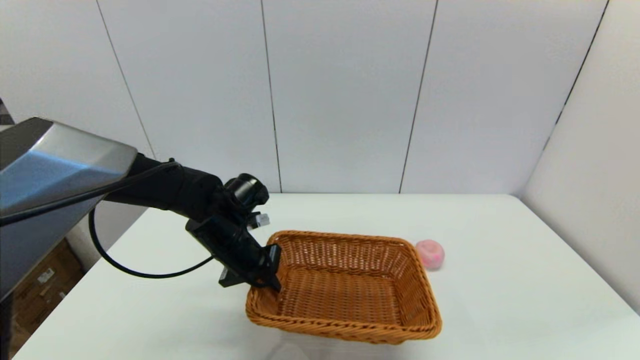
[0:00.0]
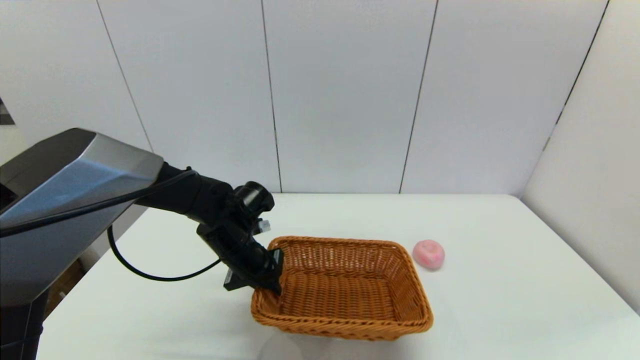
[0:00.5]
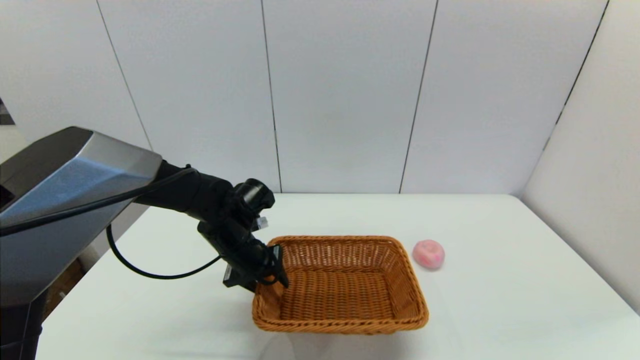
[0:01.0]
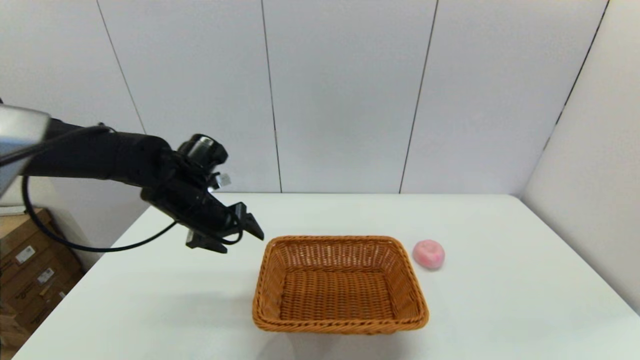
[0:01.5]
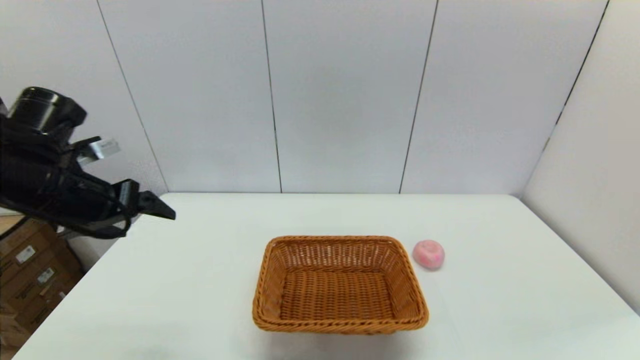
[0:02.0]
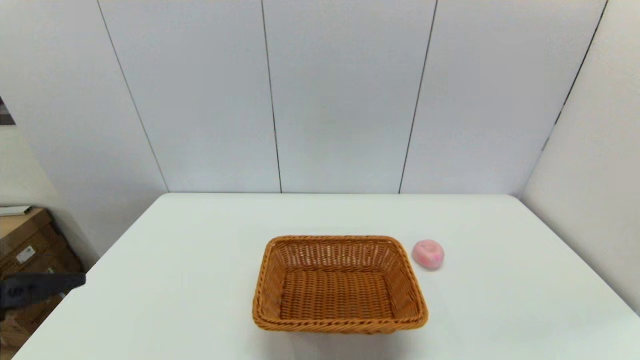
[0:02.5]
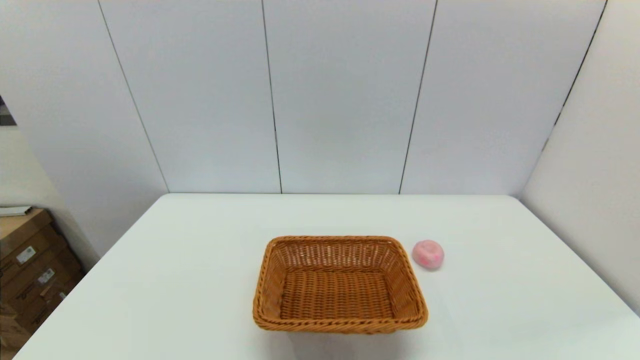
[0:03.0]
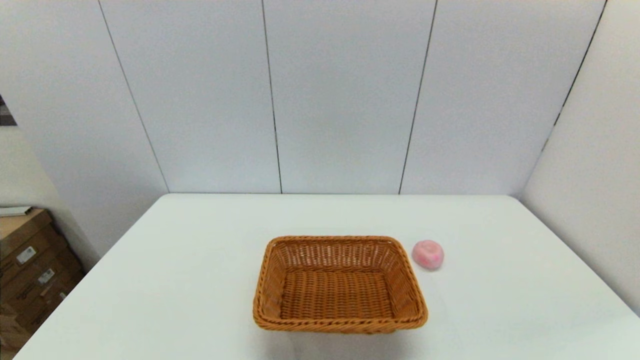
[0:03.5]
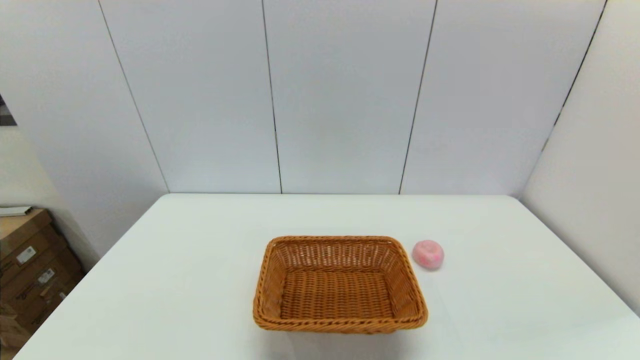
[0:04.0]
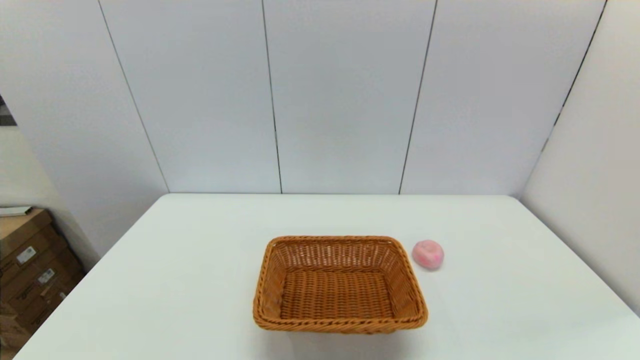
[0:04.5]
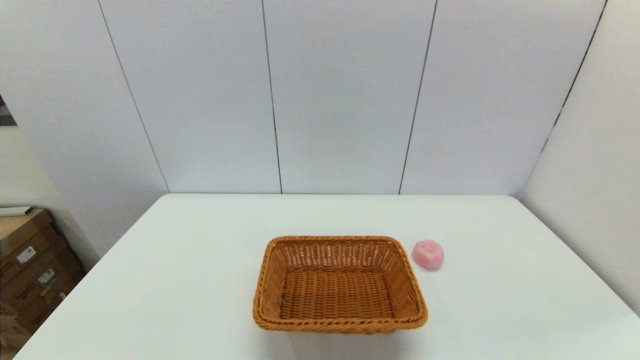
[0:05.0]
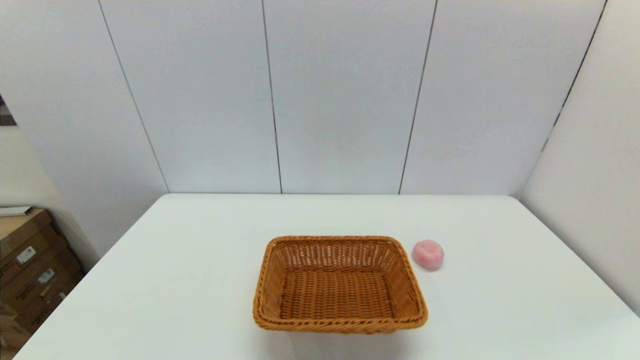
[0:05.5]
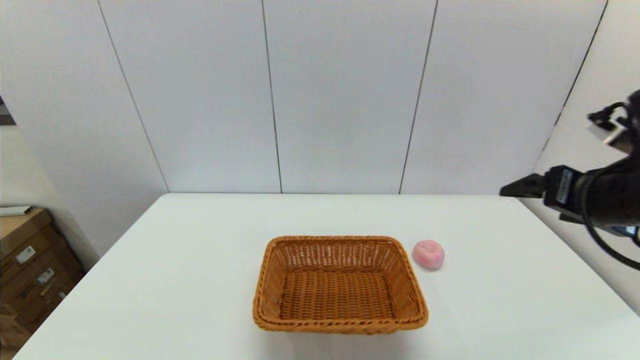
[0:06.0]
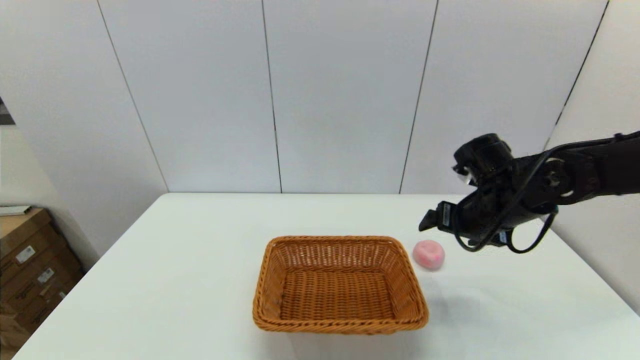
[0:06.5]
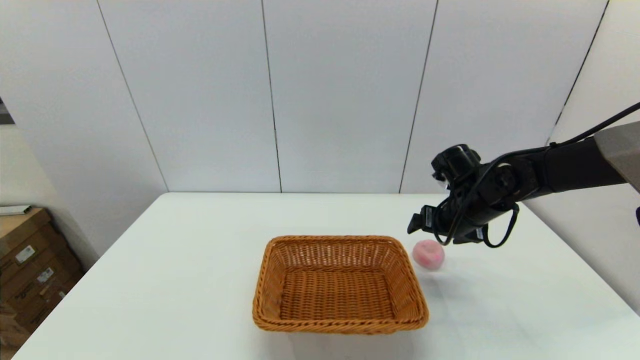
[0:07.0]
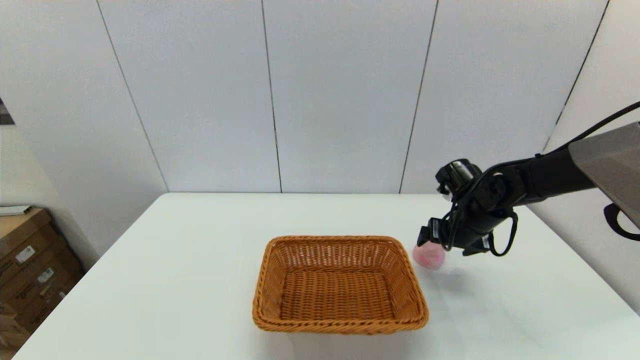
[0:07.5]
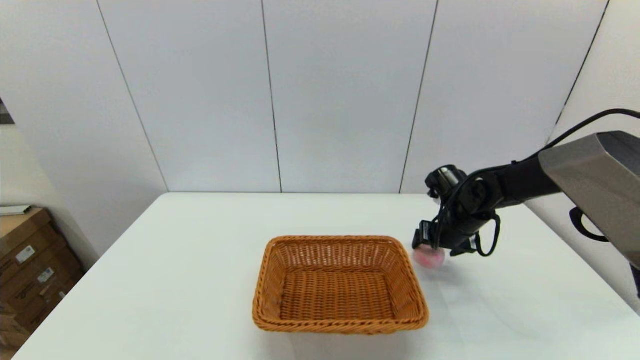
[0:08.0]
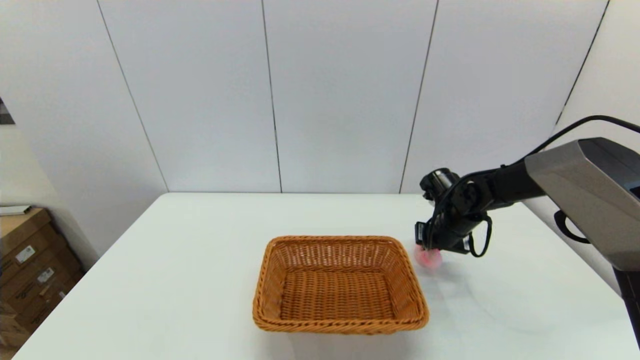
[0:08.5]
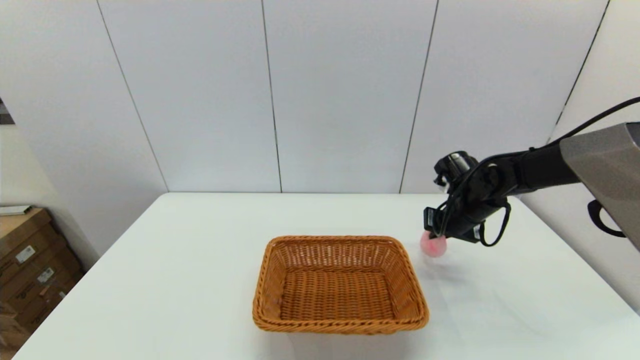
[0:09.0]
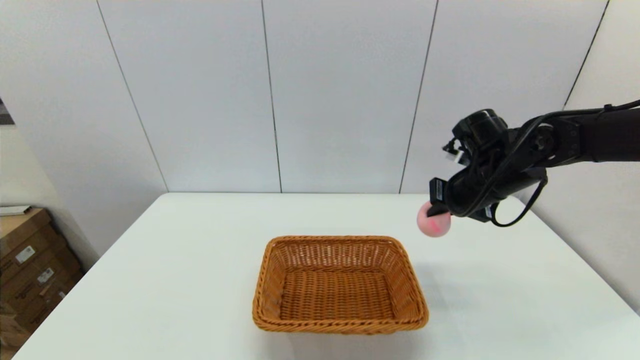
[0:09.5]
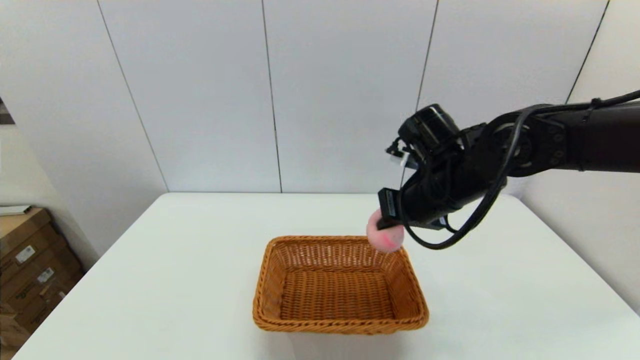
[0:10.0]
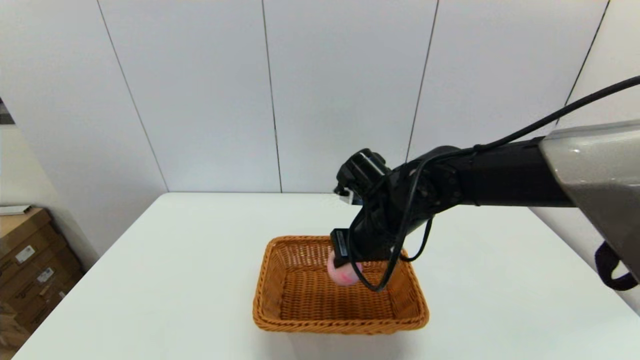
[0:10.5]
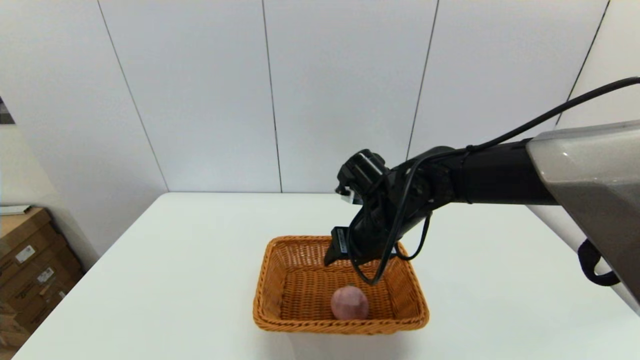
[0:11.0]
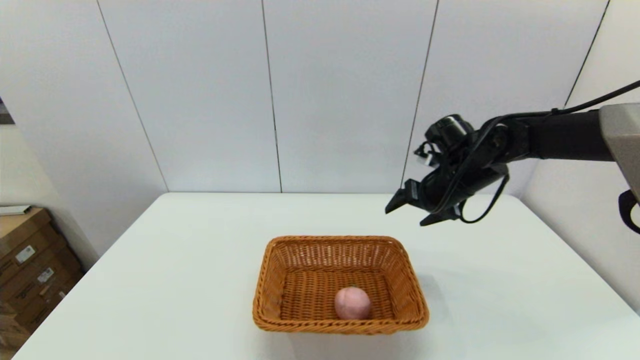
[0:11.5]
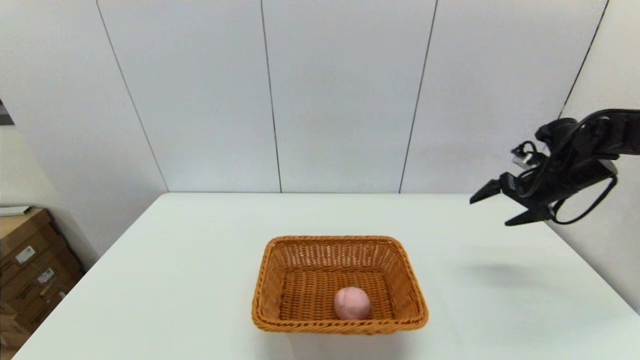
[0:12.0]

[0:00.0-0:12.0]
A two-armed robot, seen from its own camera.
Step, 0:01.5 to 0:08.5: Grasp the peach with the right gripper.
Step, 0:09.0 to 0:10.5: Place the peach into the light basket with the right gripper.
0:00.0 to 0:02.0: The left gripper travels to the left, upward and backward by roughly 20 cm, and opens.
0:02.0 to 0:04.0: The left gripper shifts approximately 30 cm backward and downward.
0:04.0 to 0:06.0: The right gripper moves forward and upward, about 30 cm.
0:06.0 to 0:08.0: The right gripper is displaced downward and forward by approximately 25 cm.
0:08.0 to 0:10.0: The right gripper moves upward, to the left and backward, some 20 cm, and closes its fingers.
0:10.0 to 0:12.0: The right gripper heads to the right, covering some 25 cm, and opens.

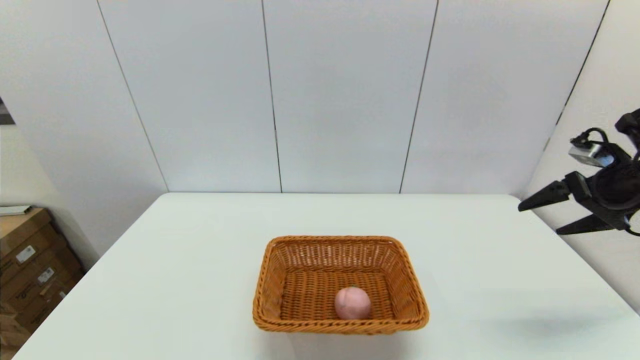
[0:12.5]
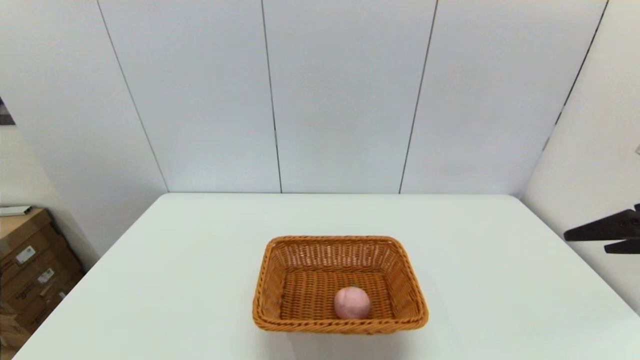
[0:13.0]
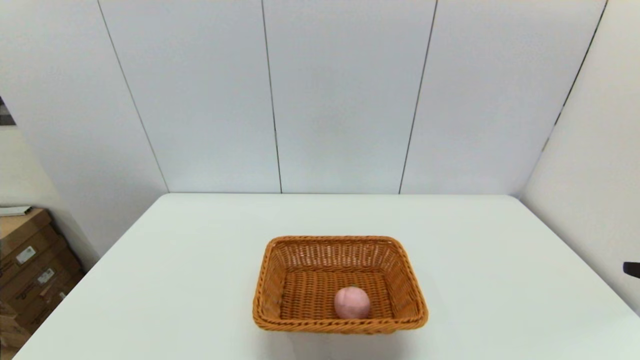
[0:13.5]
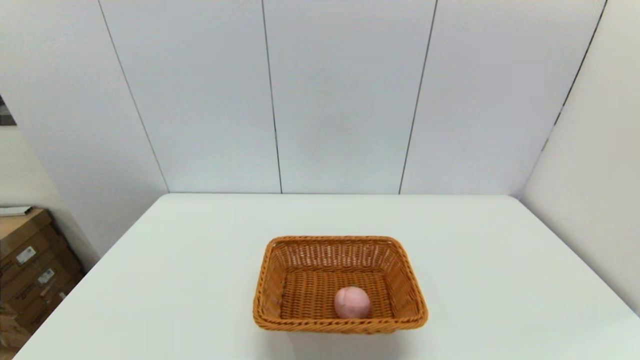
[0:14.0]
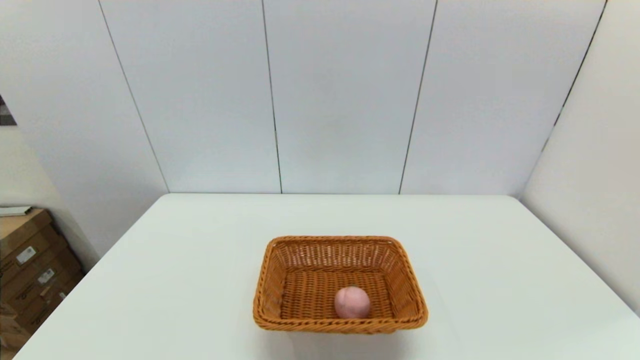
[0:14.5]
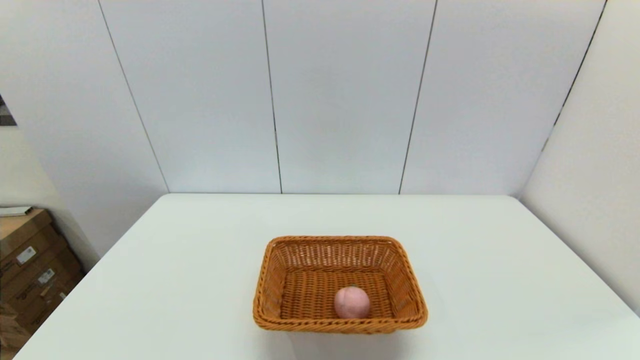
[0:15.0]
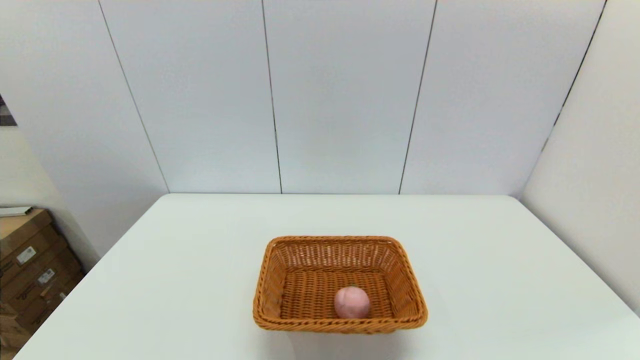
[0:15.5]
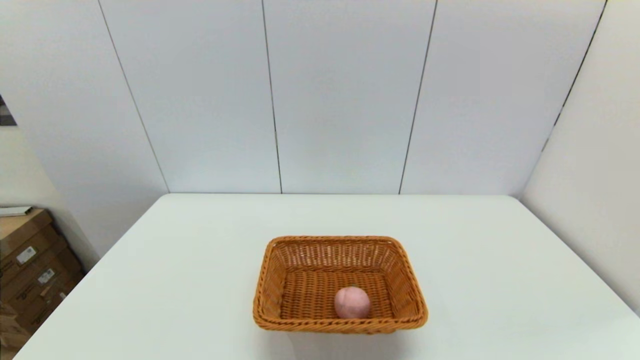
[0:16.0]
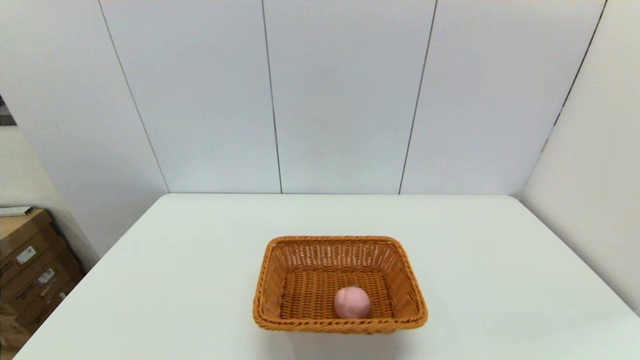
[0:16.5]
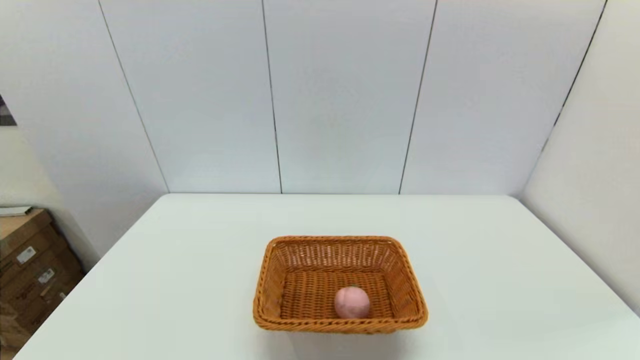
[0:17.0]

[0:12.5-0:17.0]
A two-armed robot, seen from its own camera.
0:12.5 to 0:14.5: The right gripper moves backward, some 30 cm.
